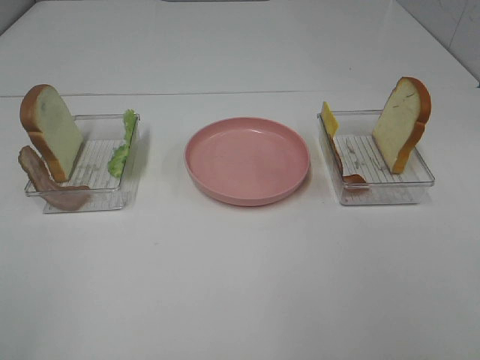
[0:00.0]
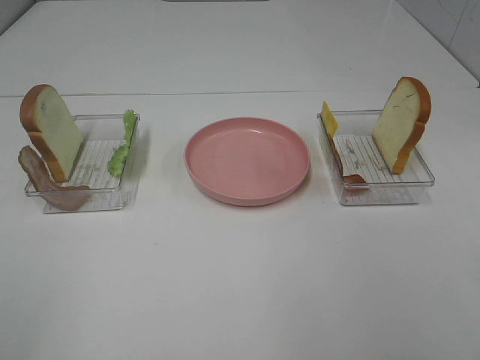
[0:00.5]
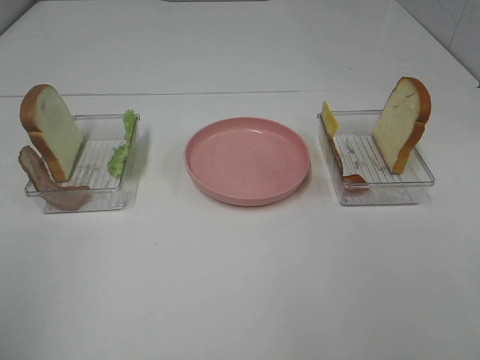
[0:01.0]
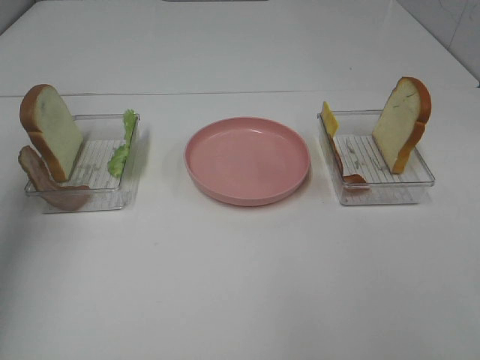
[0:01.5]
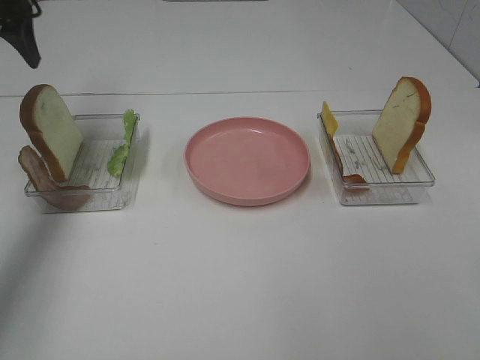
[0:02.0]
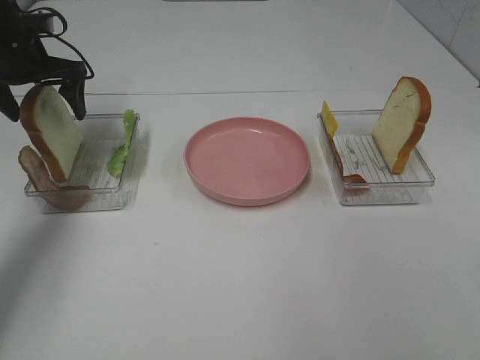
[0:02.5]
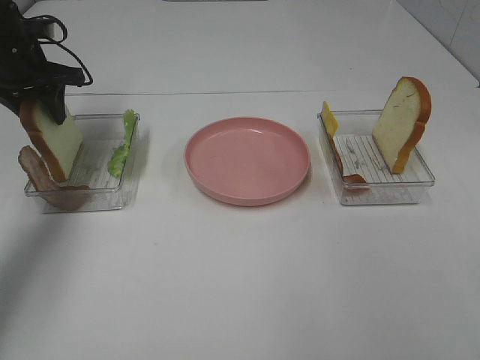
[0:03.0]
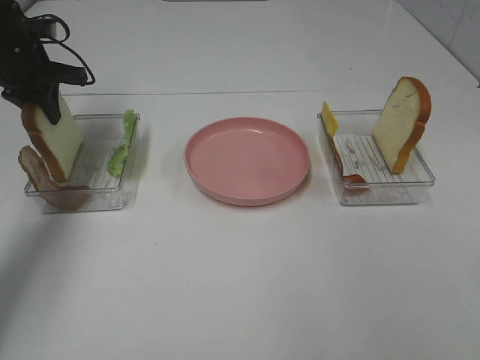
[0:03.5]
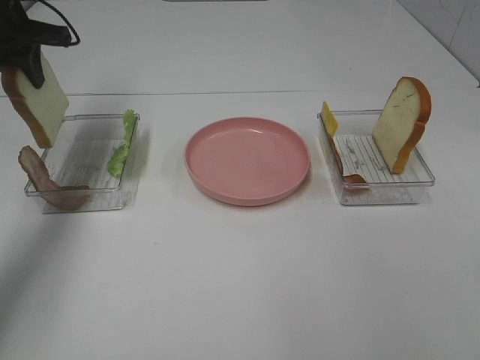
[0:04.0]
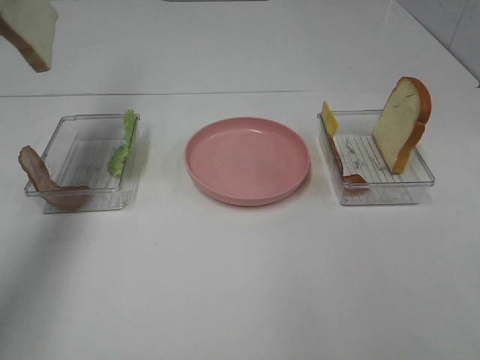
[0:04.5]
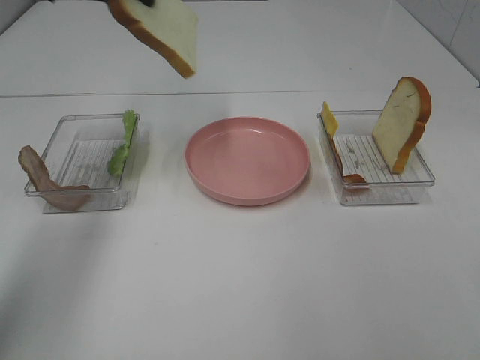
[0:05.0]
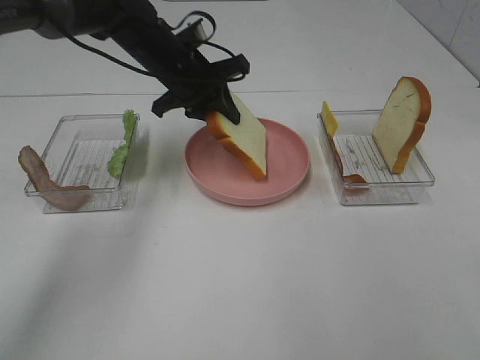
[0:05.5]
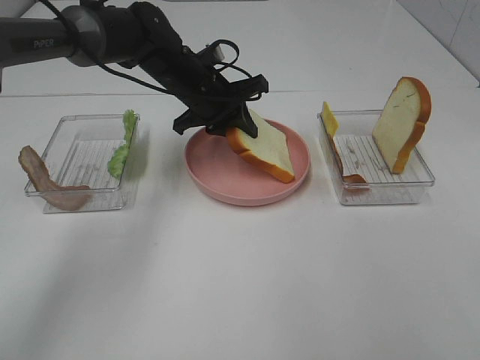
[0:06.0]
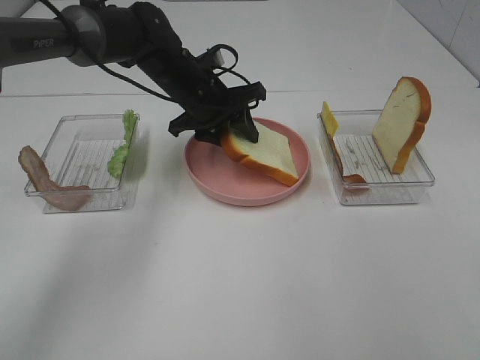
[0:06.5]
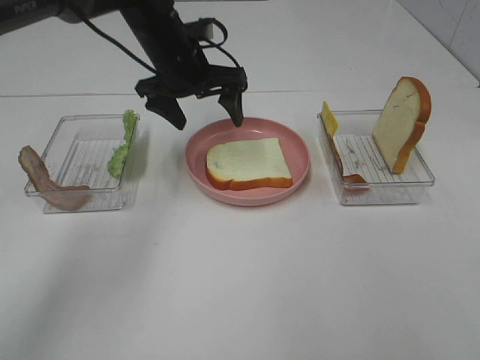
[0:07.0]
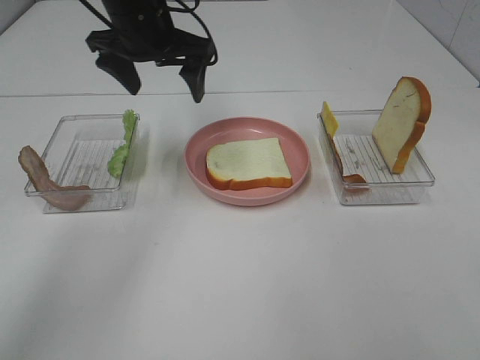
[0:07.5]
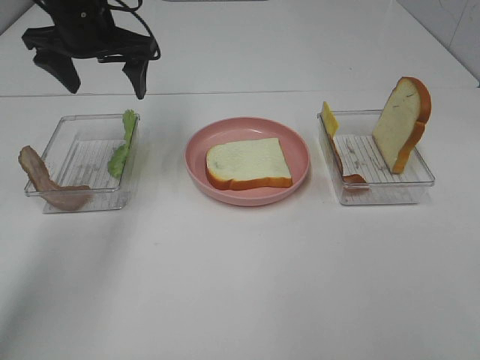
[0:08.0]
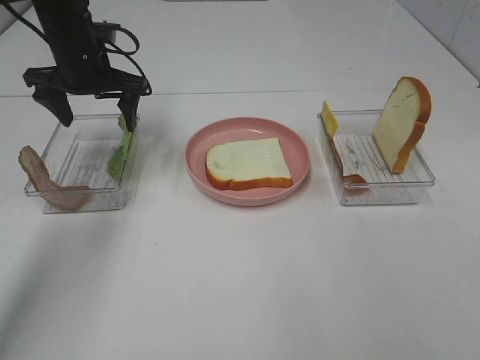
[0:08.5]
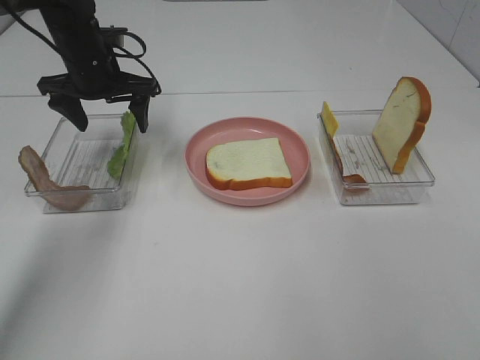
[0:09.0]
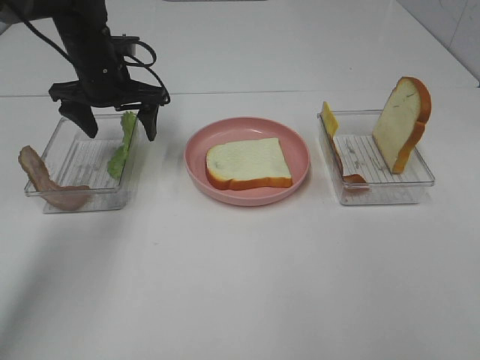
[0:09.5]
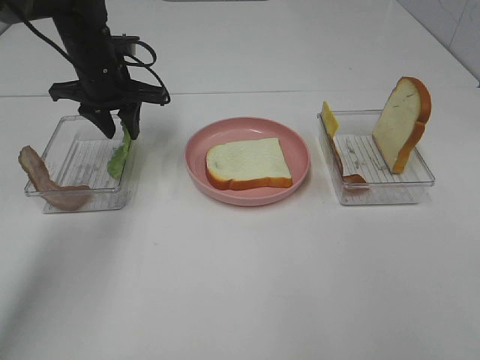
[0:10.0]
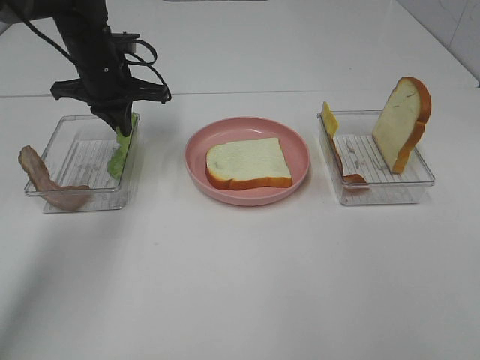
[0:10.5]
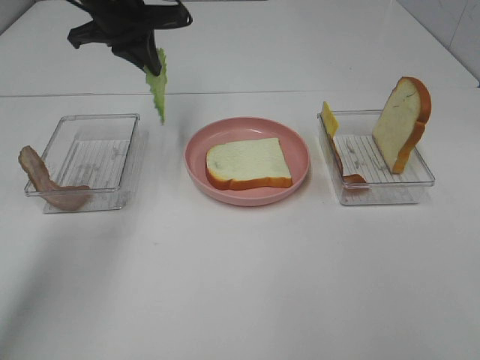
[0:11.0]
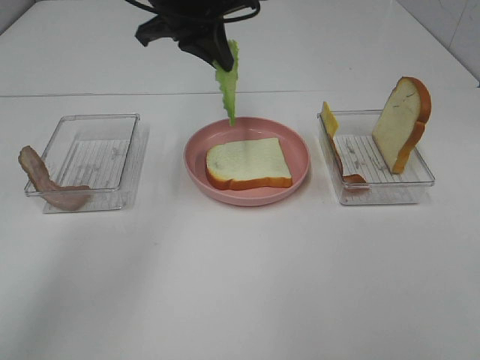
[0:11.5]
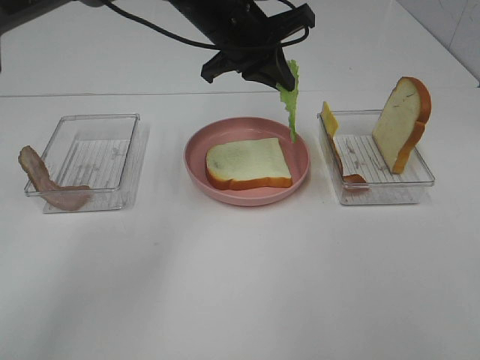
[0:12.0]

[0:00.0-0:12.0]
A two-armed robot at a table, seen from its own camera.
Task of the whole recording: Make sandwiches.
Step, 0:00.0 to 0:03.0: Left hand:grab the bread slice.
Step, 0:03.5 to 0:06.5: Left hand:place the bread slice on the plate.
Step, 0:07.0 to 0:10.0: Left hand:grab the lettuce slice.
0:00.0 to 0:02.0: The left gripper shifts some 40 cm forward.
0:02.0 to 0:04.0: The left gripper moves roughly 10 cm downward and comes back, and closes up.
0:04.0 to 0:06.0: The left gripper goes roughly 25 cm to the right and downward.
0:06.0 to 0:08.0: The left gripper is displaced to the left and upward by approximately 15 cm, and opens its fingers.
0:08.0 to 0:10.0: The left gripper shifts some 10 cm downward, and closes.
0:10.0 to 0:12.0: The left gripper shifts some 15 cm to the right, and closes its fingers.

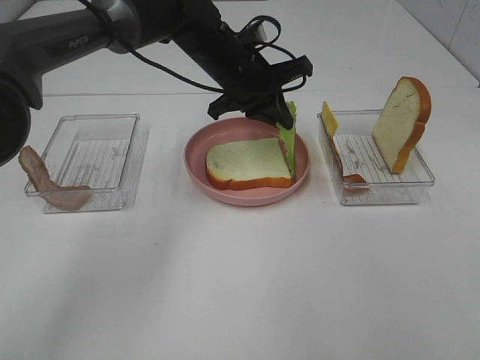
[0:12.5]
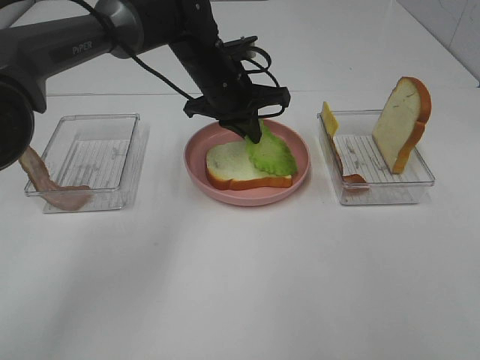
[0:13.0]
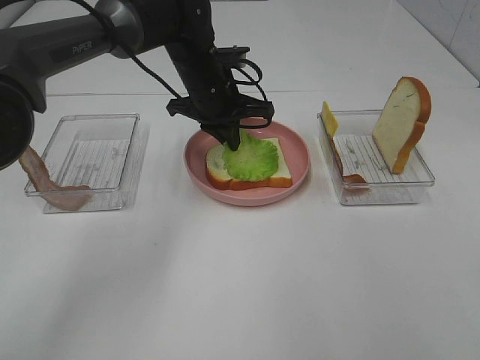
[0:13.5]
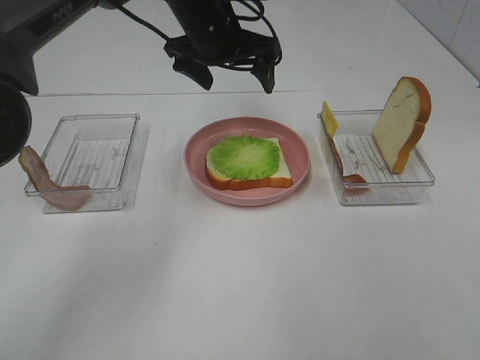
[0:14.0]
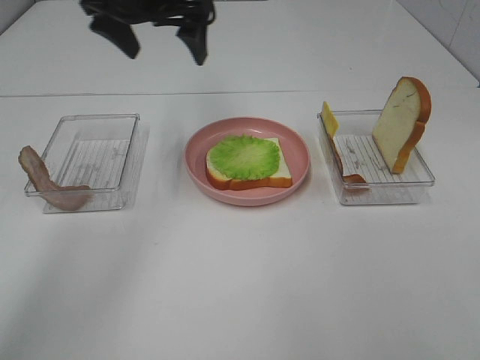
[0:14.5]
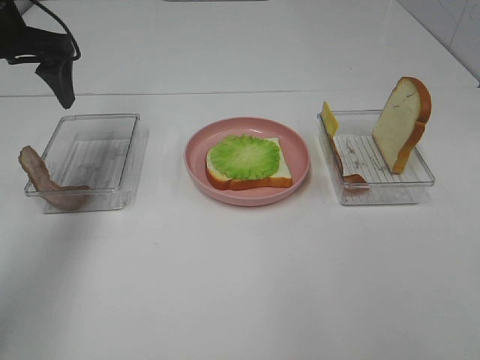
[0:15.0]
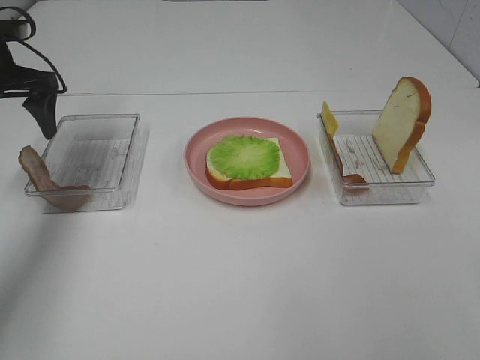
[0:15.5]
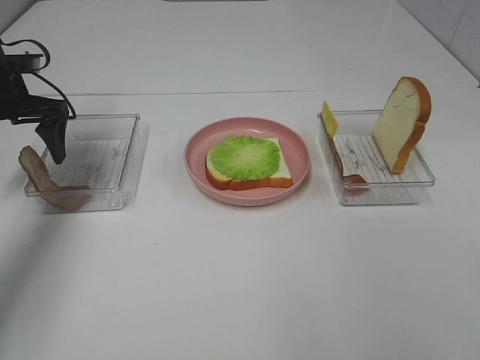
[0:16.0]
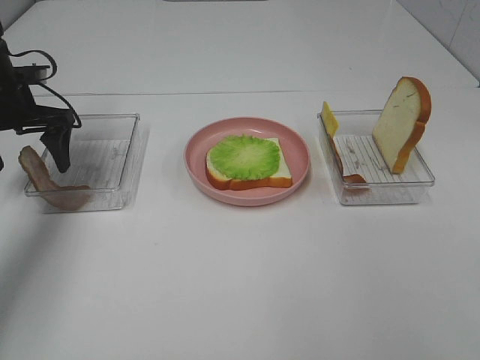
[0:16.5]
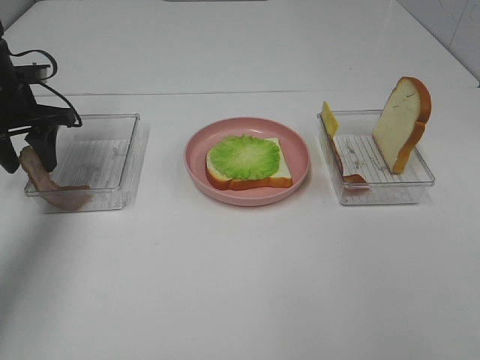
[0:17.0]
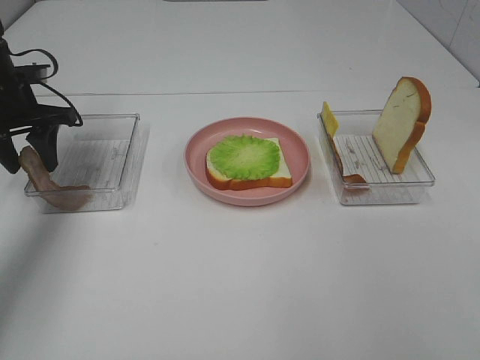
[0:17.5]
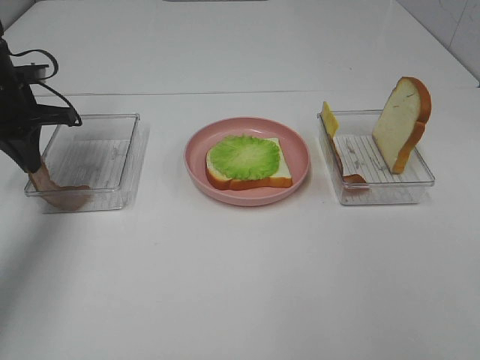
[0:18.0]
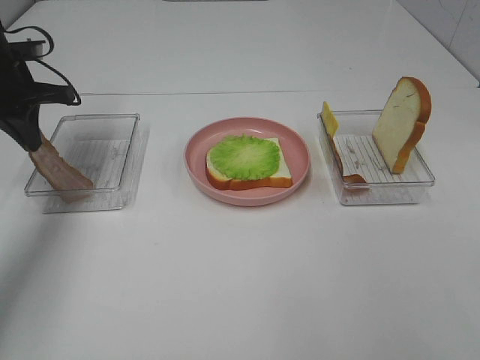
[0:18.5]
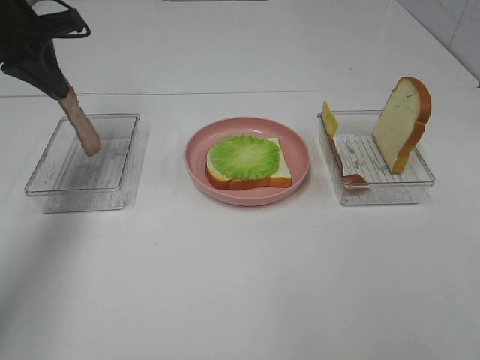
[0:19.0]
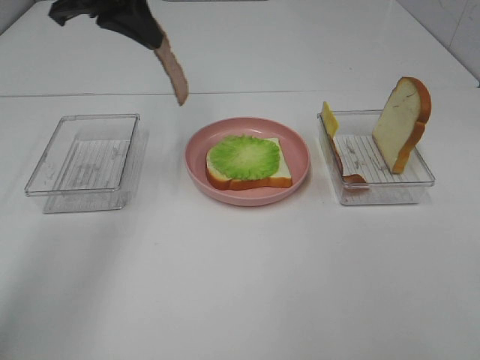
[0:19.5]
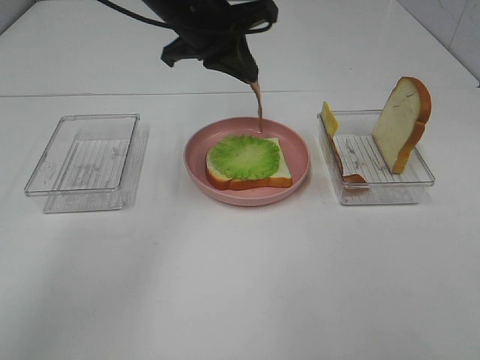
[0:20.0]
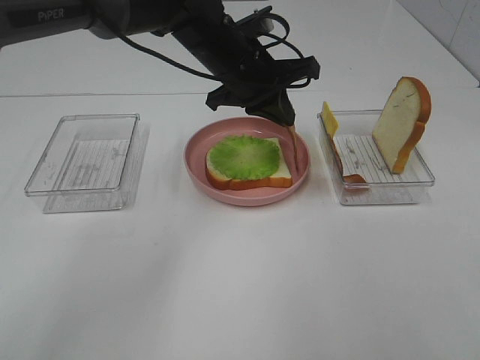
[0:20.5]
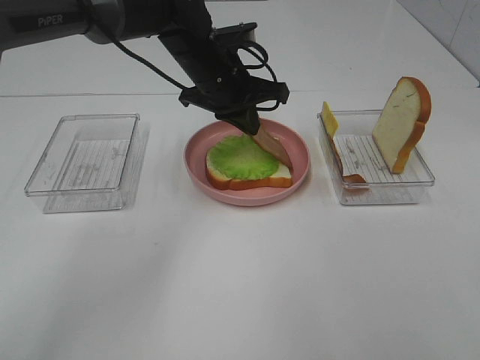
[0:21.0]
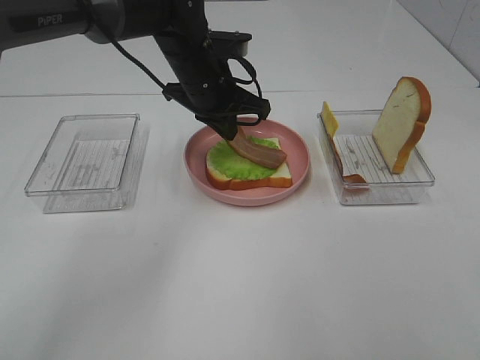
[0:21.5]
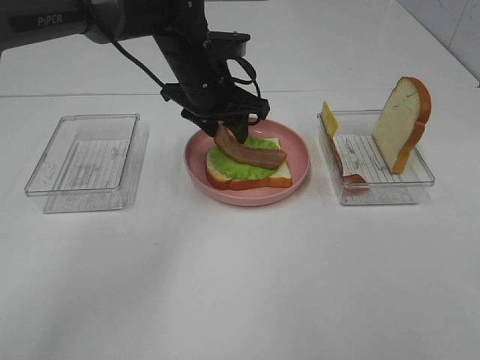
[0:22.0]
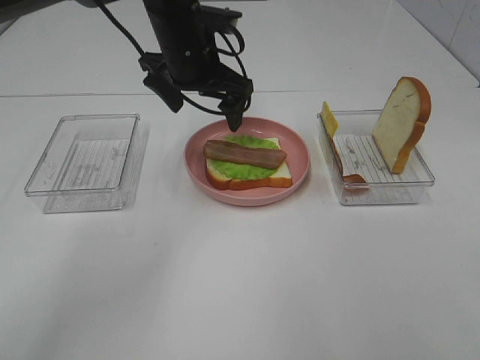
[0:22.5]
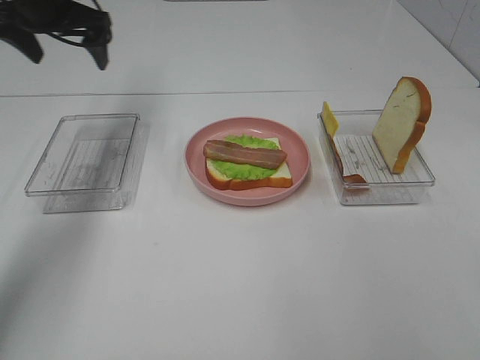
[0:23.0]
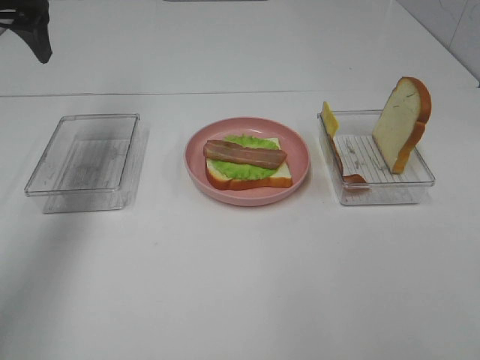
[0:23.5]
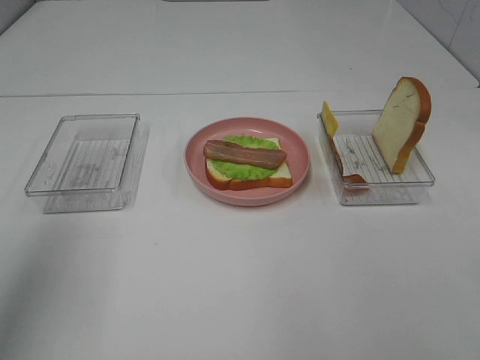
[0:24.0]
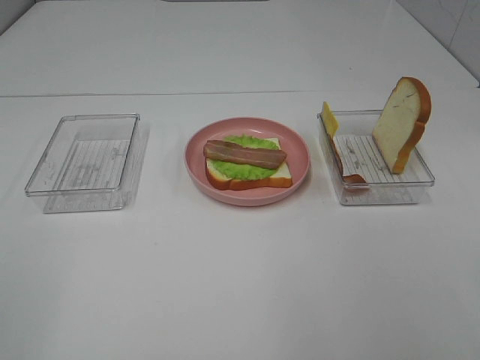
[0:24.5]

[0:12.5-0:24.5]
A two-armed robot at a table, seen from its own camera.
Task of the whole recording: Make sandwiches.
Step, 0:14.0 to 0:18.0: Left hand:grab the bacon.
Step, 0:18.5 to 0:22.0: Left hand:place bacon on lettuce slice.
0:12.5 to 0:14.5: The left gripper is displaced upward and to the left by roughly 15 cm, and opens its fingers.
0:14.5 to 0:16.5: The left gripper heads to the left and downward, covering about 20 cm.
0:16.5 to 0:18.5: The left gripper closes.
0:18.5 to 0:20.5: The left gripper moves to the right, approximately 30 cm.
0:20.5 to 0:22.5: The left gripper travels to the left by roughly 5 cm, and opens up.
0:22.5 to 0:24.5: The left gripper goes some 50 cm backward and to the left.

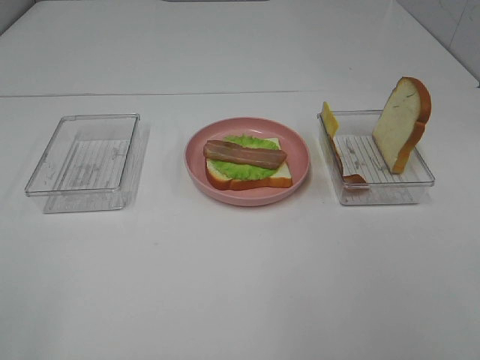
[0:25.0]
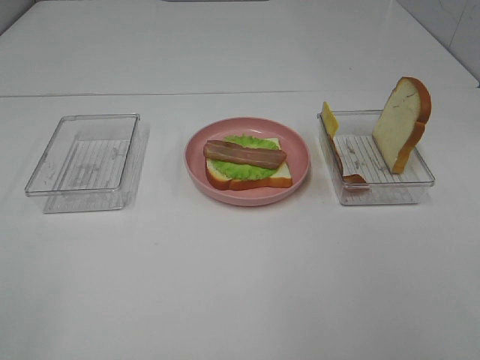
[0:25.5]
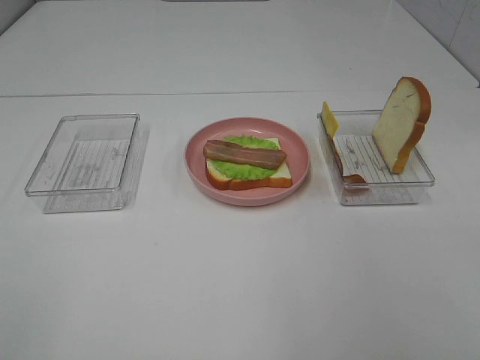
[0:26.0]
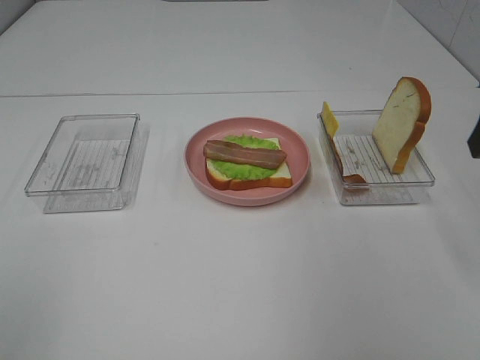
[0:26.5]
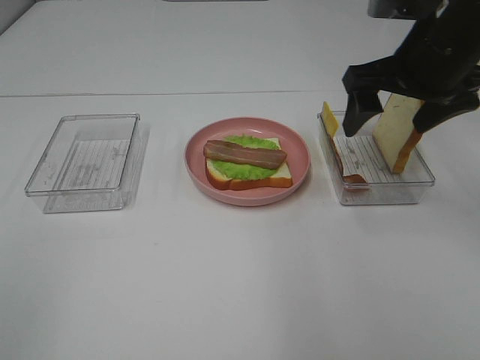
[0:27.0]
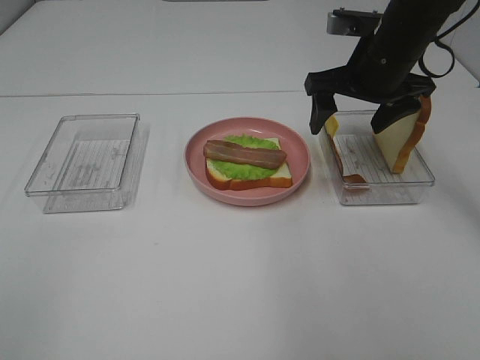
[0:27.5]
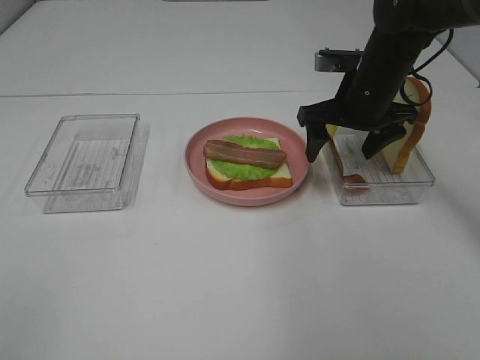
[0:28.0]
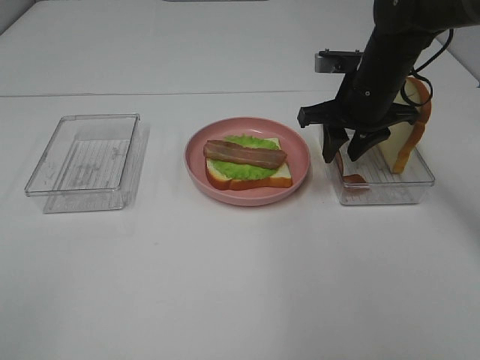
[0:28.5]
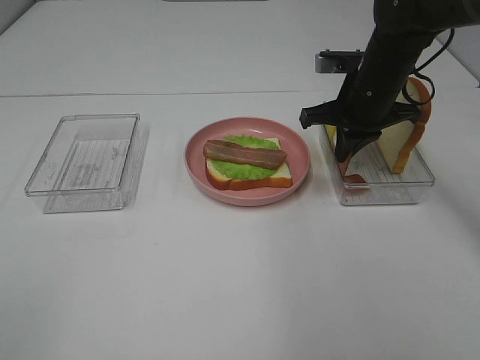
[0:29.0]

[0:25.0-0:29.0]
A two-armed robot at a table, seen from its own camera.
Task of the whole recording: Make sandwiches.
0:25.0 to 0:27.0: The right gripper heads forward, covering approximately 35 cm.
0:27.0 to 0:29.0: The right gripper moves downward and forward, approximately 10 cm, and closes up.
